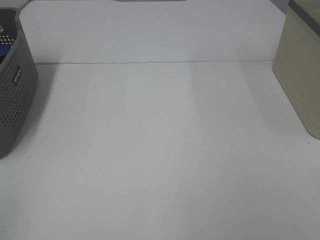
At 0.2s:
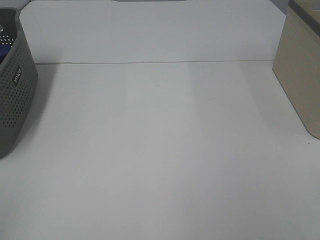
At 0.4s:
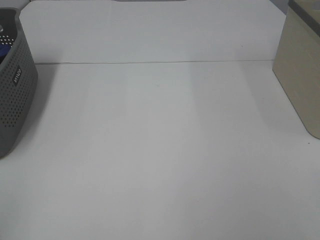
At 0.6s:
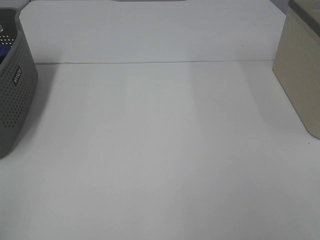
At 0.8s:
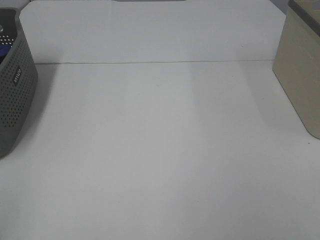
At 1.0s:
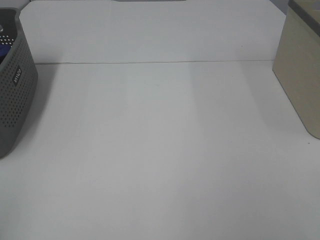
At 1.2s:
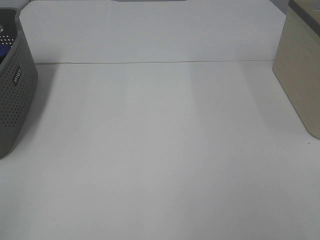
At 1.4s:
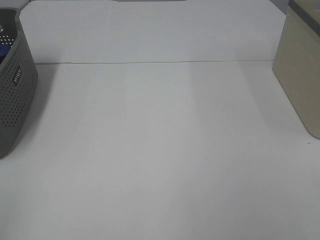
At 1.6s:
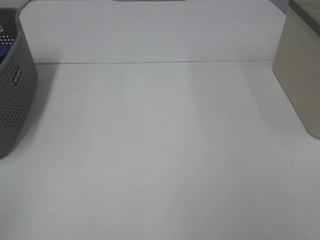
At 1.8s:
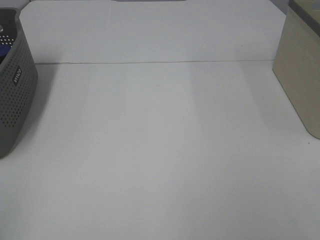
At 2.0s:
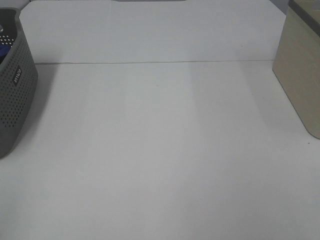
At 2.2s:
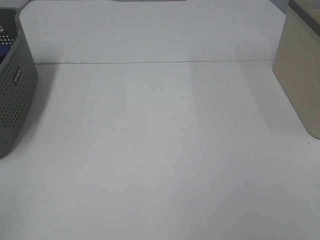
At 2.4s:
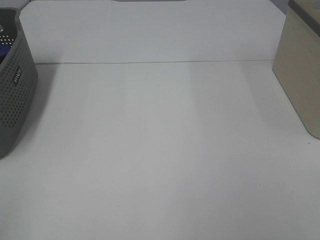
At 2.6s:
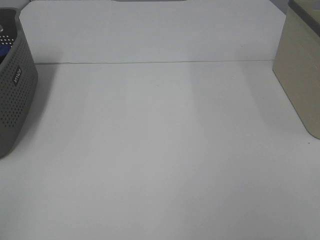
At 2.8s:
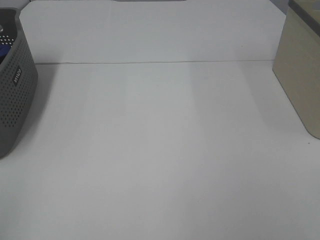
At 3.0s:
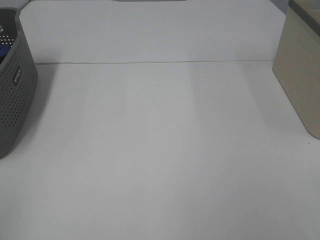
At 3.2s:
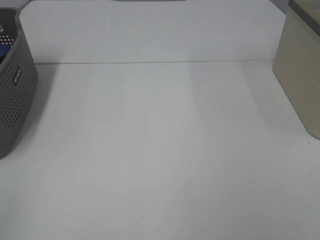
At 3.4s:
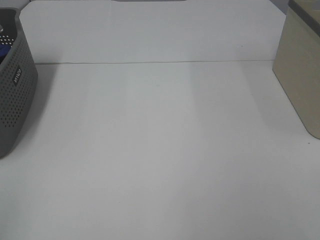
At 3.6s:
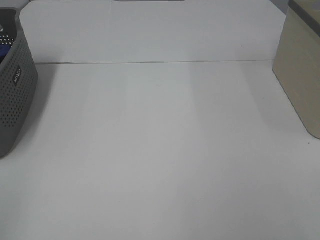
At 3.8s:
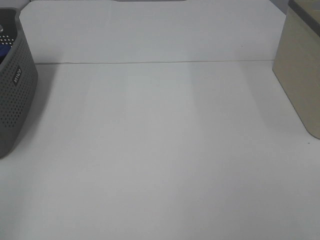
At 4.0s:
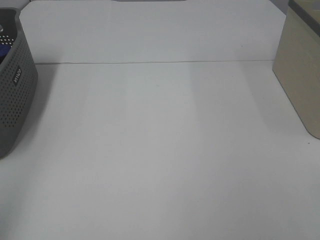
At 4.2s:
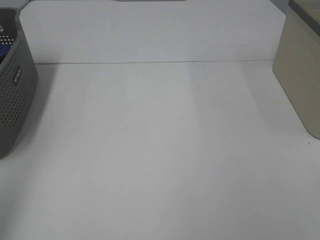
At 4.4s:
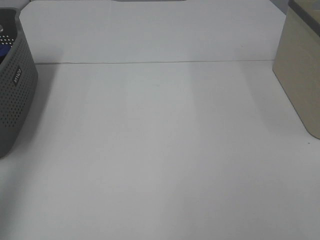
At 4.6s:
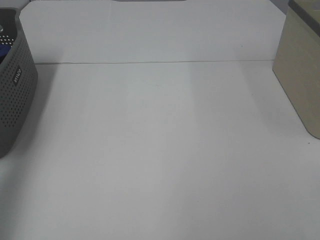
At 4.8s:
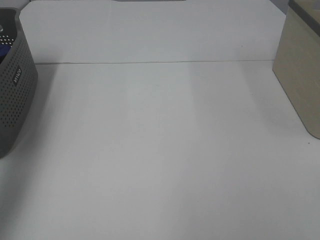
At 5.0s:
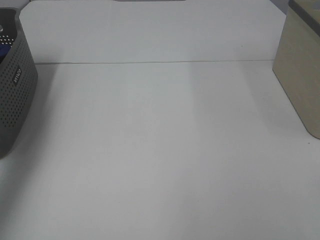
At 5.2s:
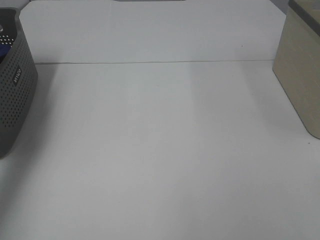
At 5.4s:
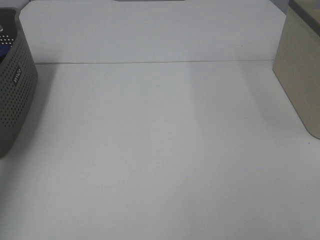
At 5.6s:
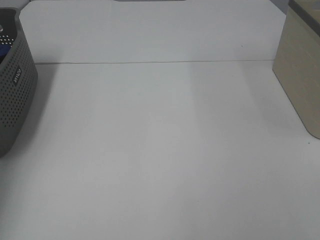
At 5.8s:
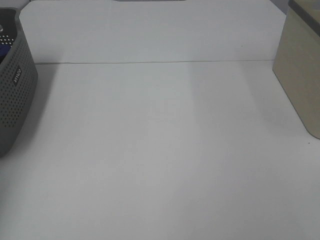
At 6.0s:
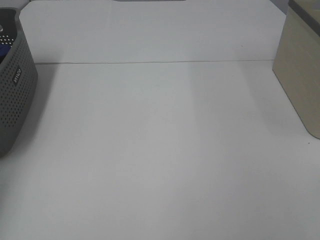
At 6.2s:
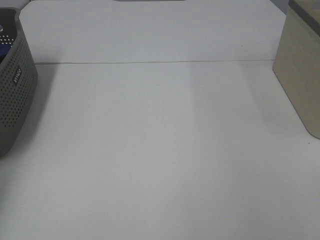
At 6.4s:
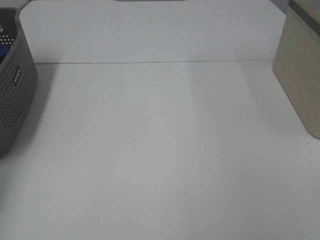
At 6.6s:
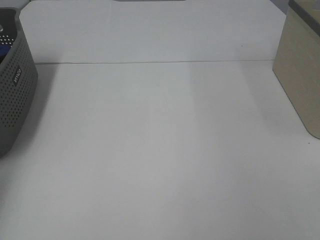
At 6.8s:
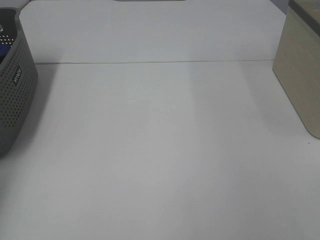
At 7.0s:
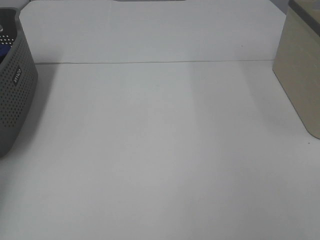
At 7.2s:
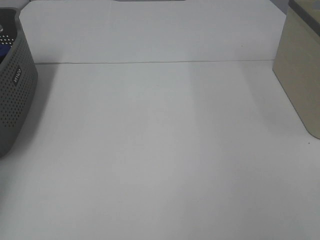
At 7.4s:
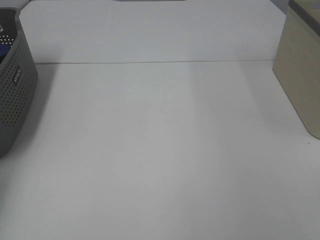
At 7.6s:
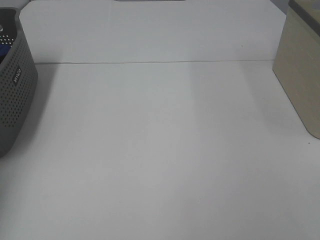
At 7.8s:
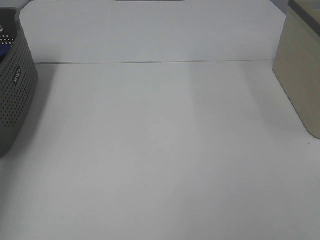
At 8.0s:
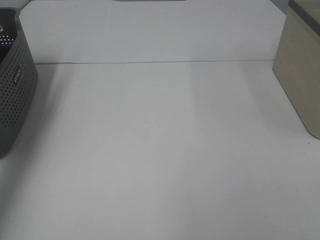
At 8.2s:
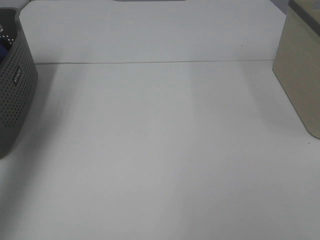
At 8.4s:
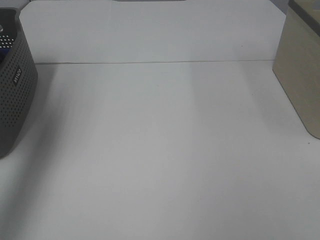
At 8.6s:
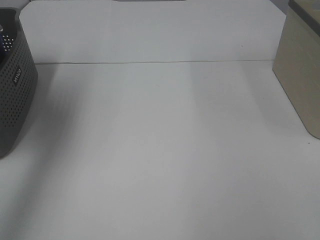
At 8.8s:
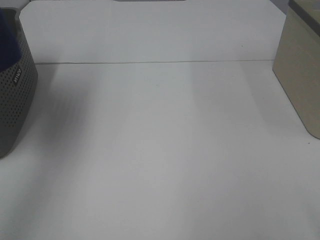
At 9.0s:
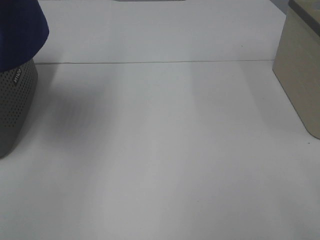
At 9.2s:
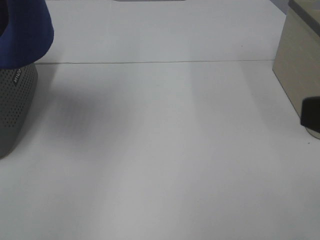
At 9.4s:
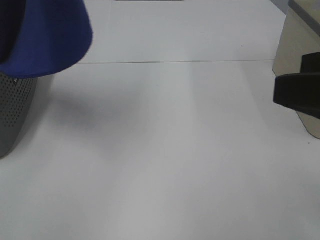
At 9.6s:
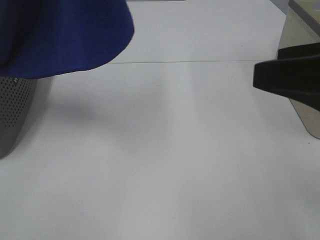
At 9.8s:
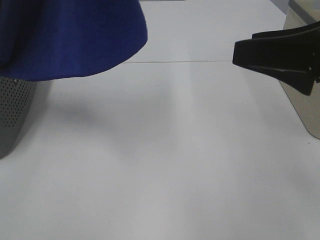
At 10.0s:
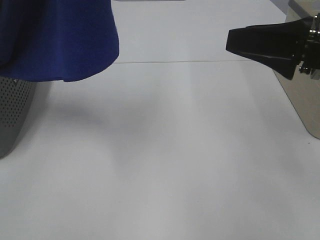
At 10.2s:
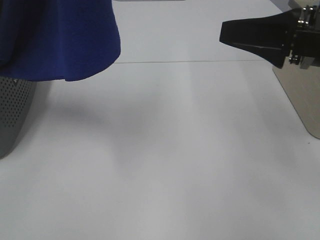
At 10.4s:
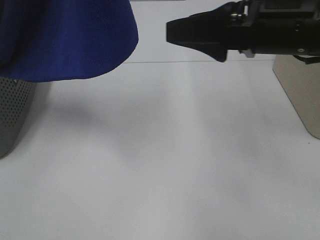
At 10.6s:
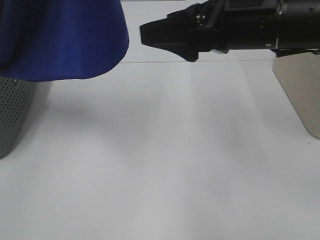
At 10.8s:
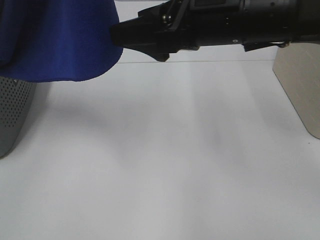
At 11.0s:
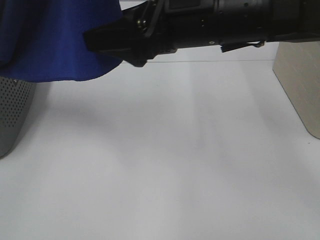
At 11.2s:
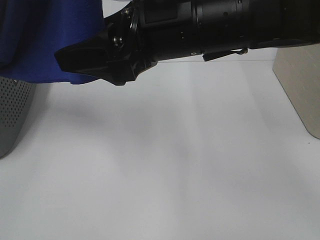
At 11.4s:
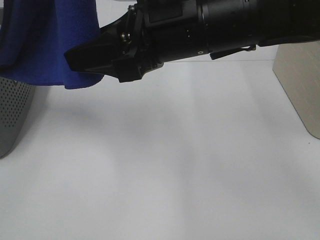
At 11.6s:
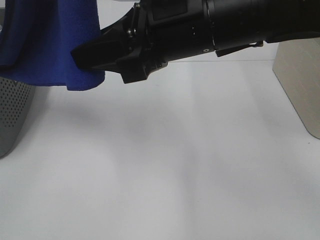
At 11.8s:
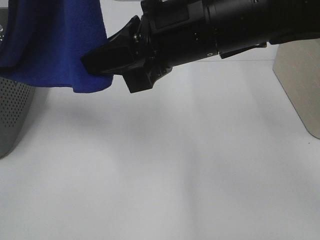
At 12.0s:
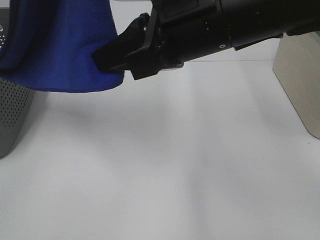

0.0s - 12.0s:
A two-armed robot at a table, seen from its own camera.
Task of the whole recording: Remove the towel and place it.
Step, 8.6s - 11.2s: Right hand: grab a corner of the blue towel and straighten it.
0.0s - 3.0s: Both grippers stay about where they are.
3.0s - 4.4s: The left gripper shifts approximately 20 cm forward and upward.
4.4s - 6.0s: The left gripper heads forward and downward, covering roughly 35 cm.
7.6s - 9.0s: The left gripper shifts some 40 cm upward, to the right and backward.
9.0s - 10.4s: The right gripper moves forward and to the left, approximately 20 cm. The left gripper heads to the right, covering roughly 10 cm.
10.4s - 12.0s: The right gripper goes approximately 10 cm to the left, and closes up.

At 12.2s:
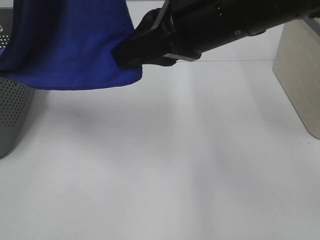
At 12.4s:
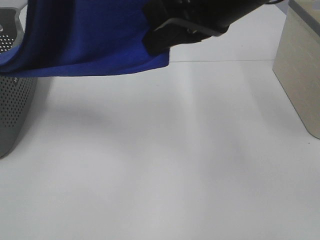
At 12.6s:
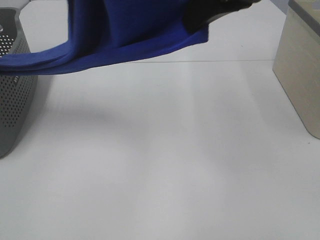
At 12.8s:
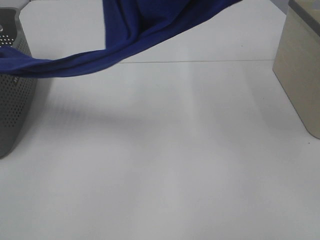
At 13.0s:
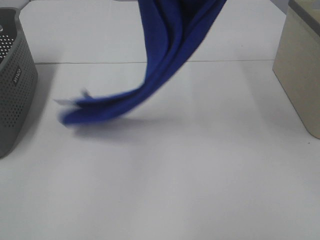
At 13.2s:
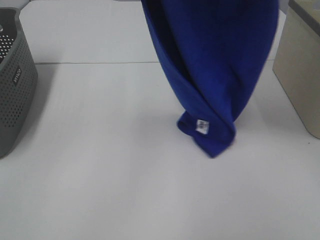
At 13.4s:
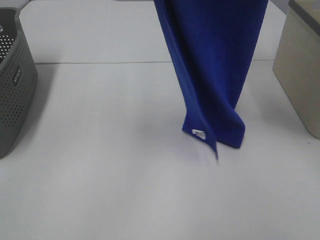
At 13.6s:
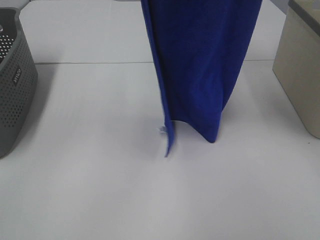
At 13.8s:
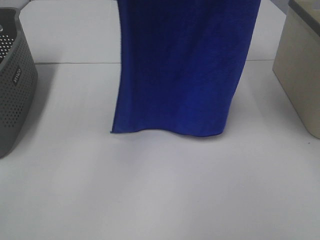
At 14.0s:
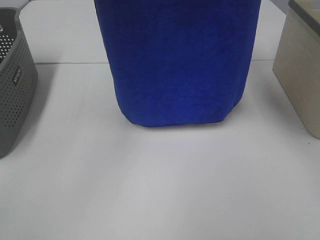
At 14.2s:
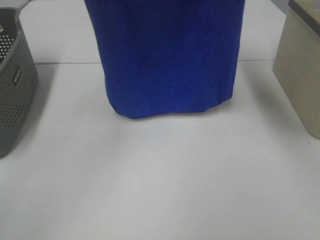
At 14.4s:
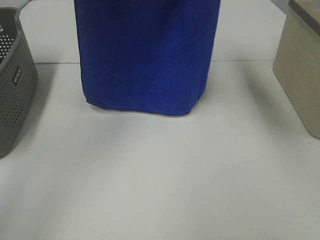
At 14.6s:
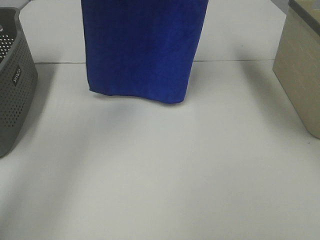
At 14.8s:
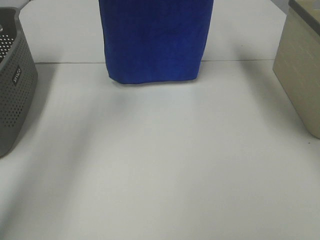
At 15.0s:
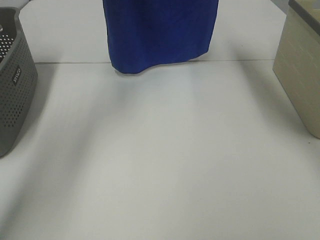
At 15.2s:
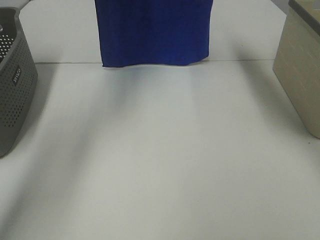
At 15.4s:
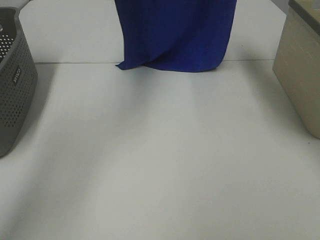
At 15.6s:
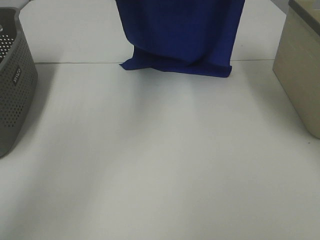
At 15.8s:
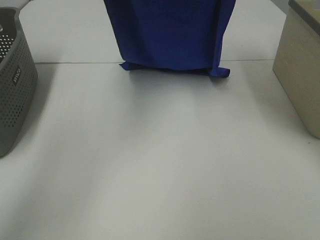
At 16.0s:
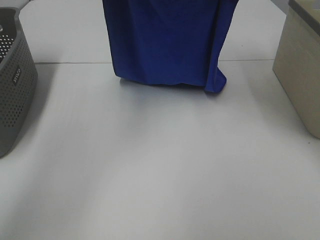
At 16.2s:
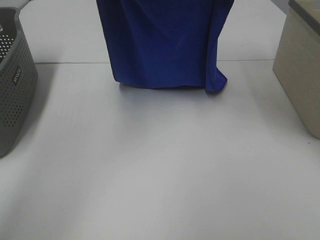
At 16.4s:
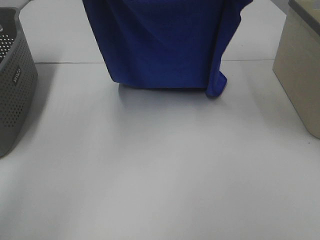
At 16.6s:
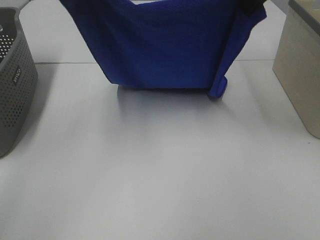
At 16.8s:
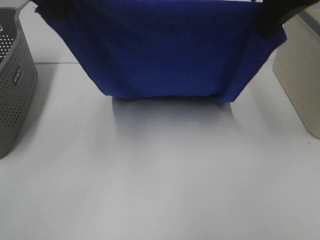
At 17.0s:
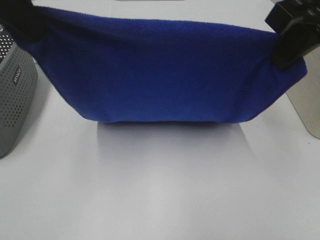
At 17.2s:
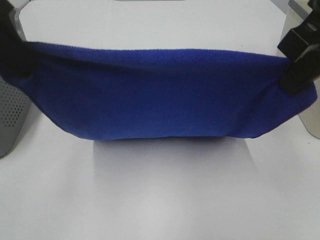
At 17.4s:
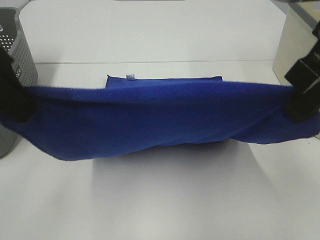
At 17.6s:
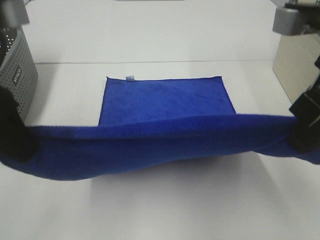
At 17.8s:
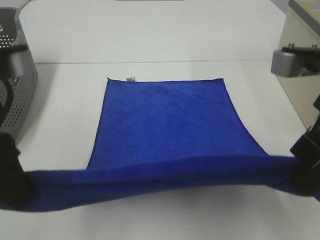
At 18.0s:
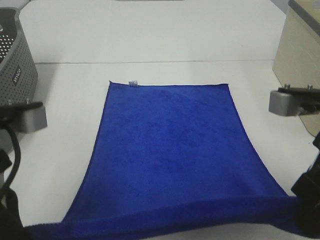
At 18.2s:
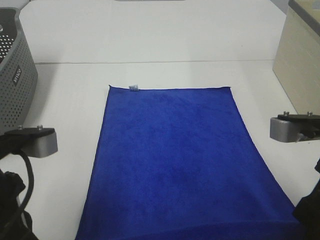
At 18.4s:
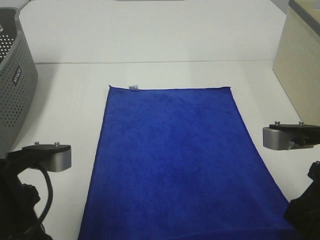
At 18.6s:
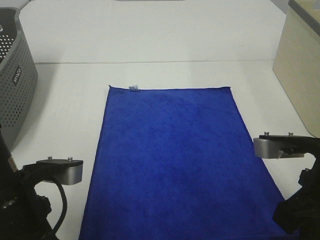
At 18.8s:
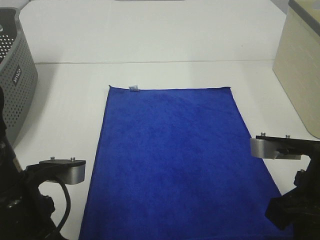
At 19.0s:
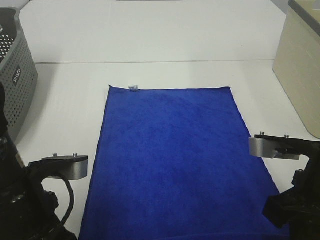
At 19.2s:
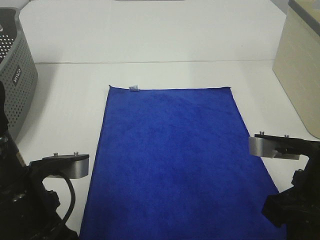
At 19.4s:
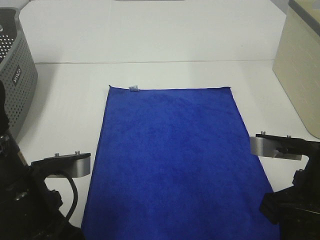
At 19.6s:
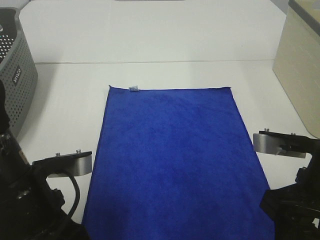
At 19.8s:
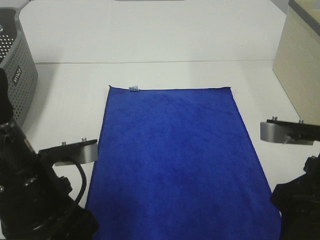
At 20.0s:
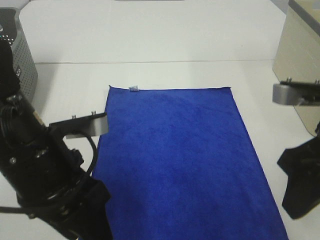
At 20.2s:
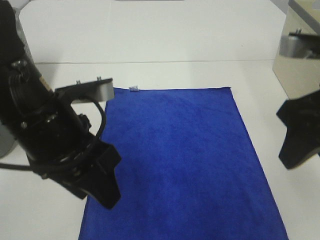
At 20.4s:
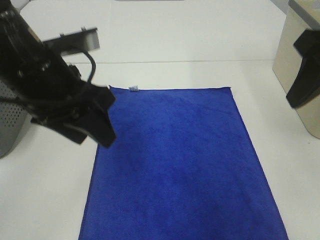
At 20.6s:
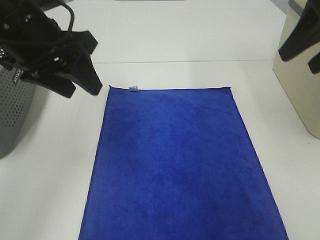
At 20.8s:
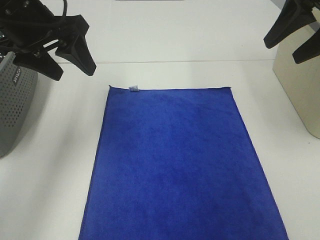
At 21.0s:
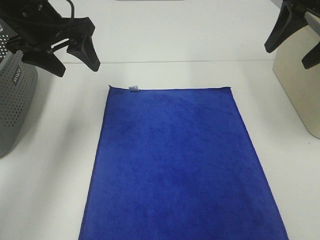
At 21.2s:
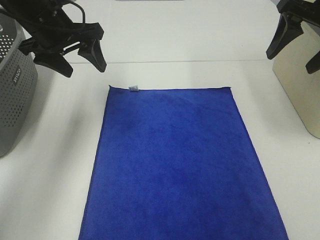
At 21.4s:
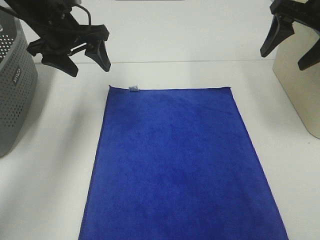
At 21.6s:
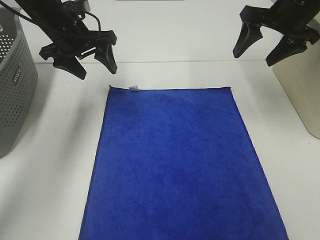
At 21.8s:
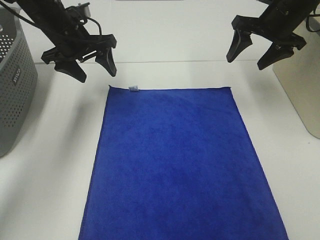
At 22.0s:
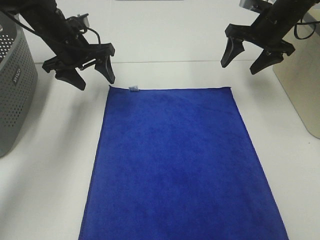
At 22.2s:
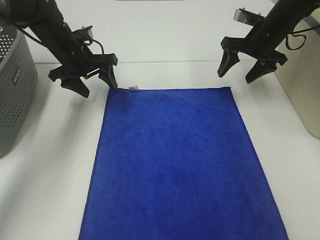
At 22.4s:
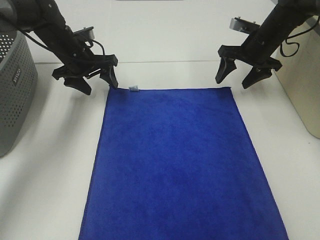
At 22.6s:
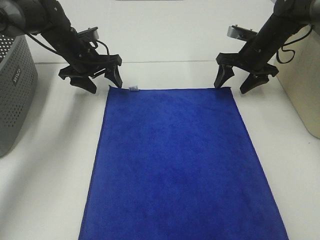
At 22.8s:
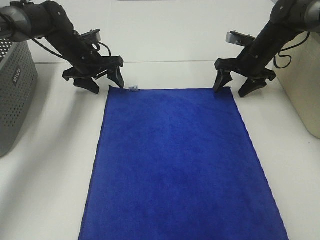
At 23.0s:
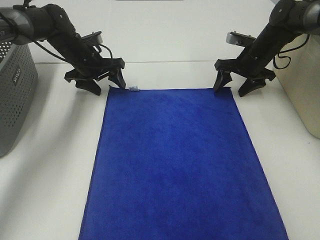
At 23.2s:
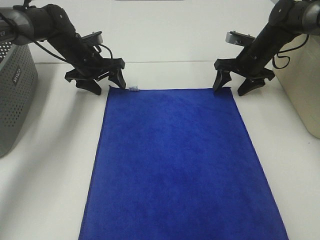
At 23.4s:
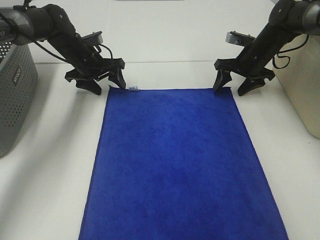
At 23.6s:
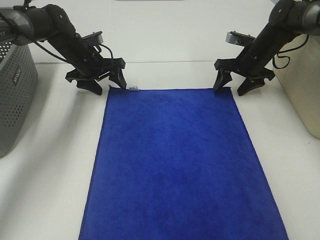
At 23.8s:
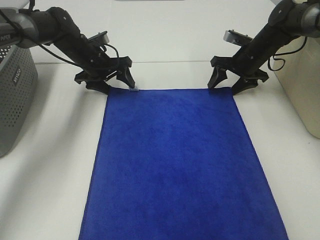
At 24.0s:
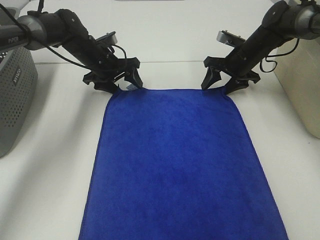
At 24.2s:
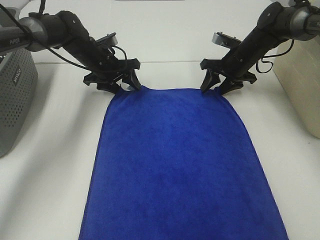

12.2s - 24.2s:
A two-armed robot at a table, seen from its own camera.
Task of the whole recording: Remove the towel and place it.
Step, 12.2s - 15.8s: Left hand: spread the blue towel flat on the table.
Step, 12.2s - 15.8s: Right hand: spread the blue towel flat on the table.
Step, 16.0s - 22.4s: Left hand:adjust the blue towel.
Step, 16.0s - 22.4s: Right hand:adjust the blue towel.
12.2s - 13.8s: The right gripper moves upward, approximately 20 cm. Meanwhile the left gripper travels forward by approximately 10 cm.
13.8s - 15.2s: Both grippers move forward, some 15 cm.
15.2s - 16.6s: Both grippers travel together backward and downward, roughly 15 cm.
16.6s - 18.2s: Both grippers travel together backward and downward, roughly 25 cm.
18.2s - 19.8s: The right gripper opens up. The left gripper changes place by approximately 5 cm, and opens its fingers.
19.8s - 21.2s: Both grippers travel together forward, approximately 25 cm.
21.2s - 22.6s: Both grippers move downward and forward, about 20 cm.
22.6s - 24.2s: The grippers move only a little.
